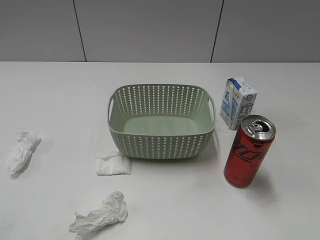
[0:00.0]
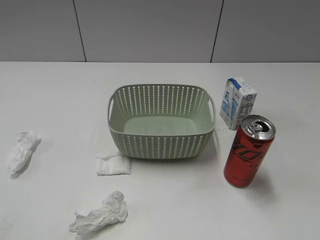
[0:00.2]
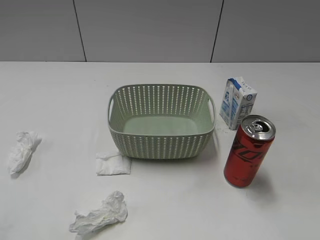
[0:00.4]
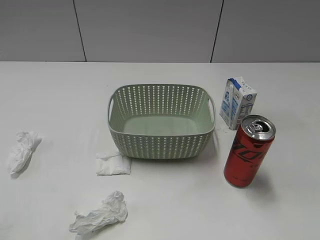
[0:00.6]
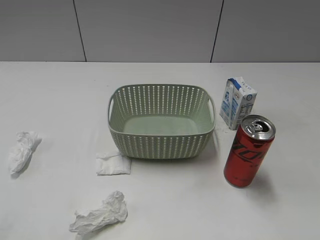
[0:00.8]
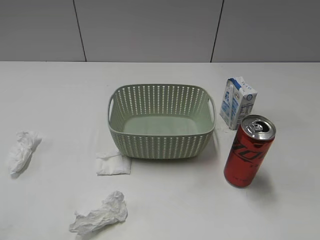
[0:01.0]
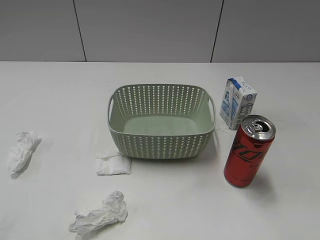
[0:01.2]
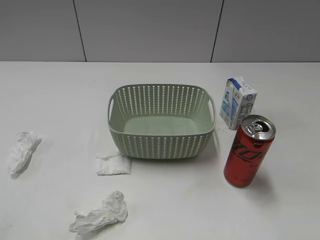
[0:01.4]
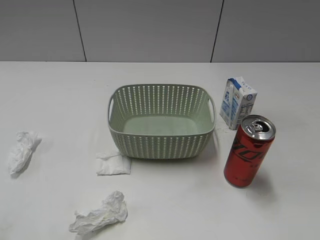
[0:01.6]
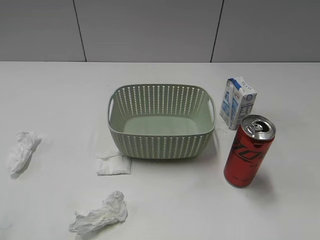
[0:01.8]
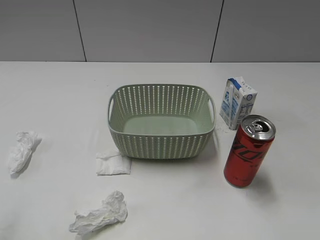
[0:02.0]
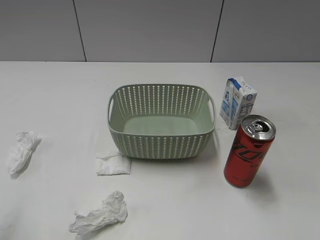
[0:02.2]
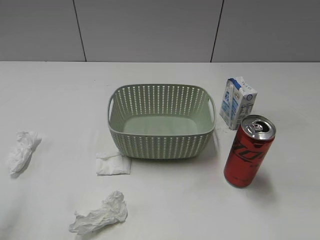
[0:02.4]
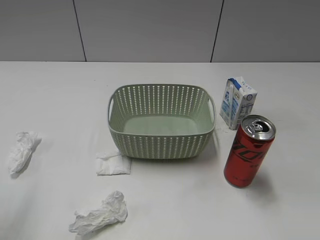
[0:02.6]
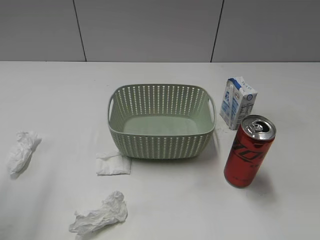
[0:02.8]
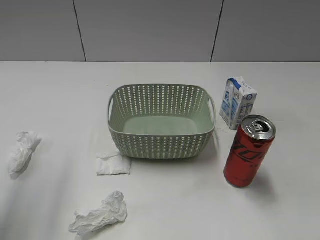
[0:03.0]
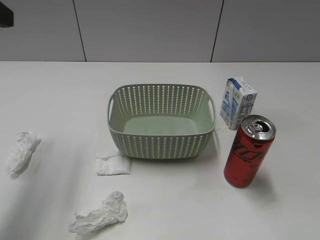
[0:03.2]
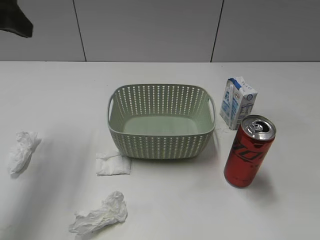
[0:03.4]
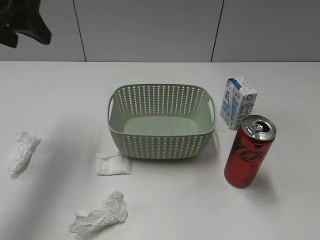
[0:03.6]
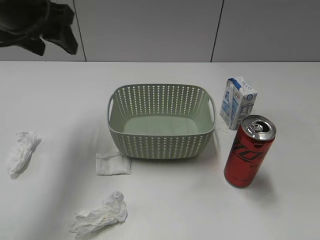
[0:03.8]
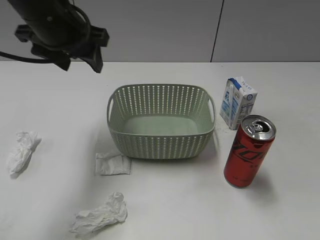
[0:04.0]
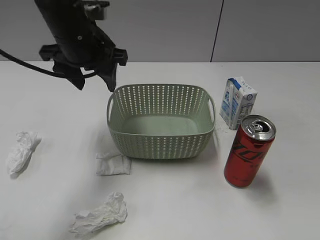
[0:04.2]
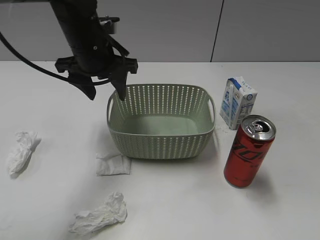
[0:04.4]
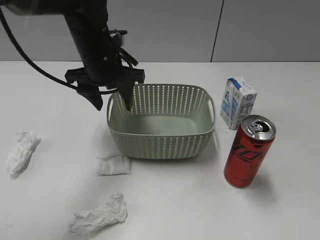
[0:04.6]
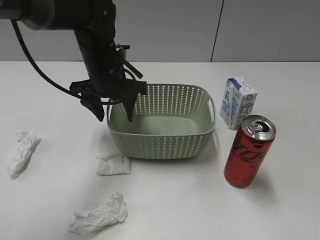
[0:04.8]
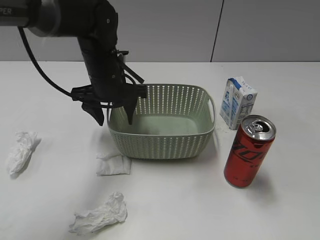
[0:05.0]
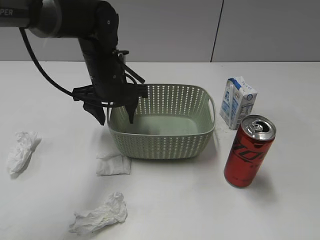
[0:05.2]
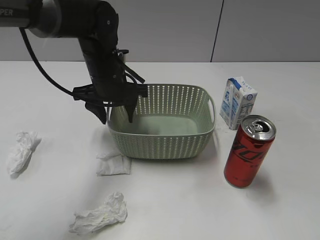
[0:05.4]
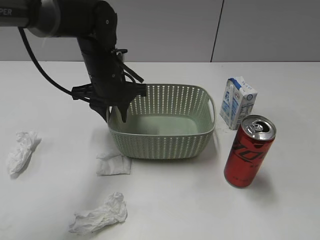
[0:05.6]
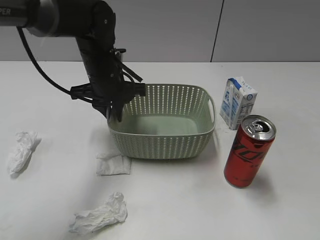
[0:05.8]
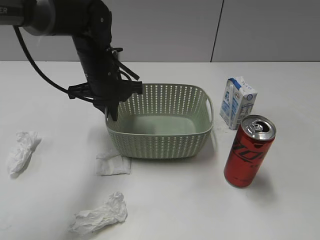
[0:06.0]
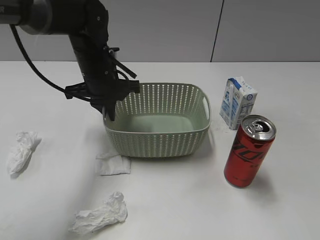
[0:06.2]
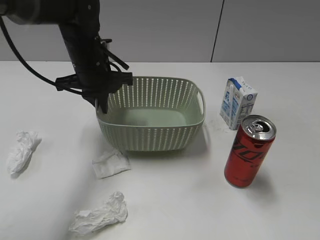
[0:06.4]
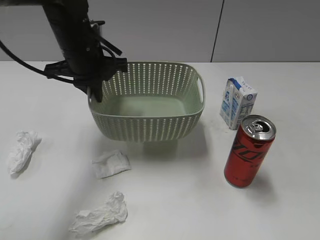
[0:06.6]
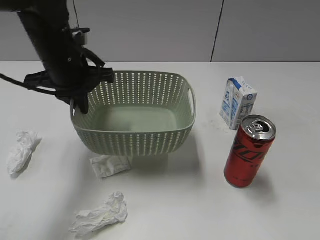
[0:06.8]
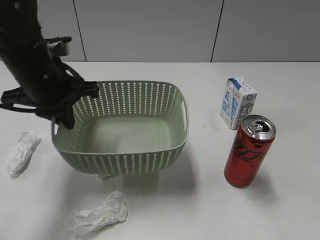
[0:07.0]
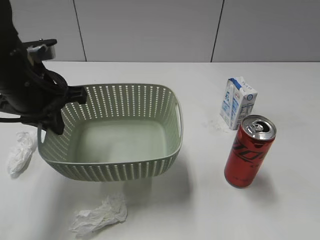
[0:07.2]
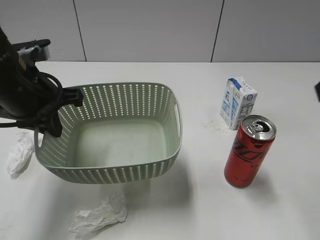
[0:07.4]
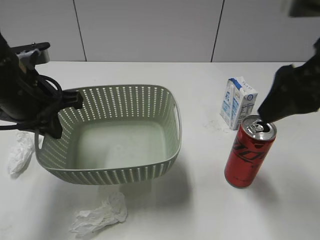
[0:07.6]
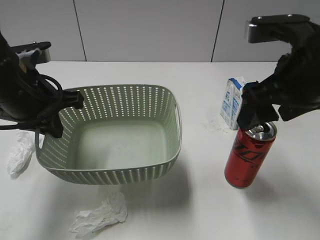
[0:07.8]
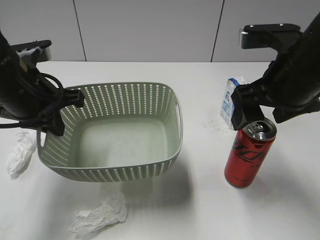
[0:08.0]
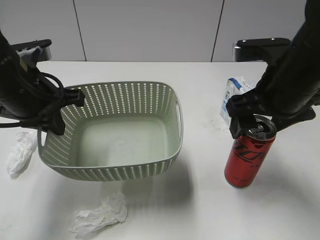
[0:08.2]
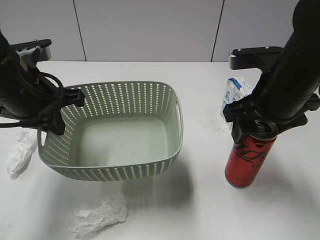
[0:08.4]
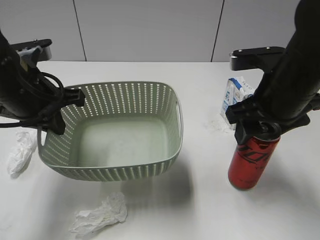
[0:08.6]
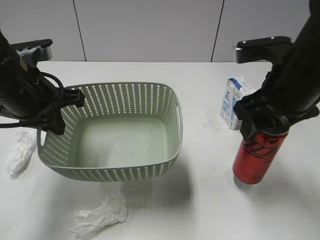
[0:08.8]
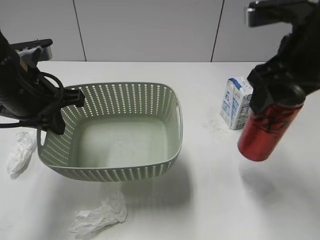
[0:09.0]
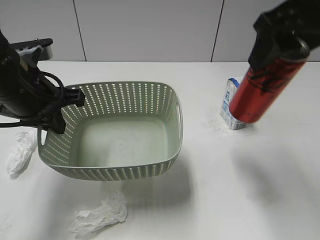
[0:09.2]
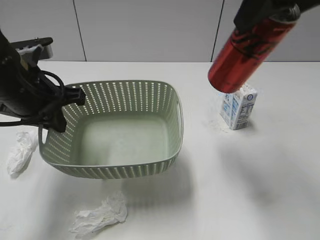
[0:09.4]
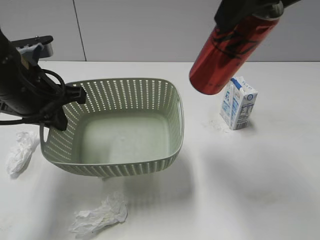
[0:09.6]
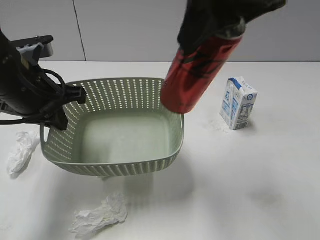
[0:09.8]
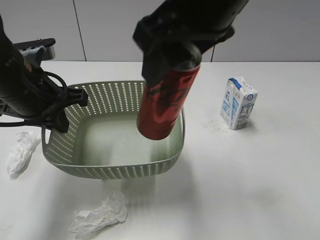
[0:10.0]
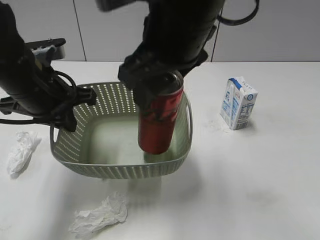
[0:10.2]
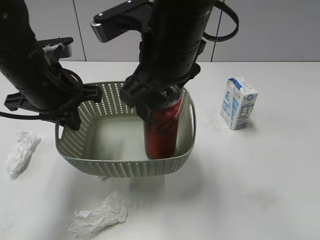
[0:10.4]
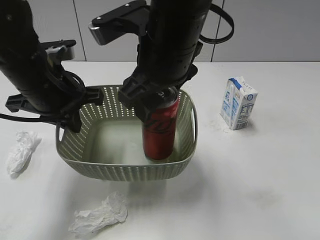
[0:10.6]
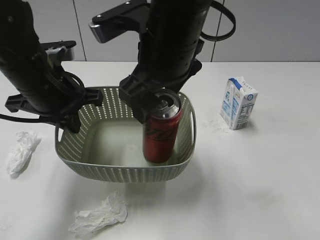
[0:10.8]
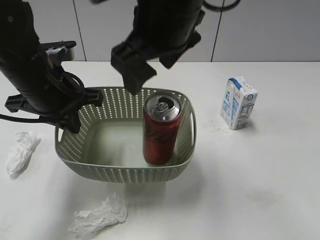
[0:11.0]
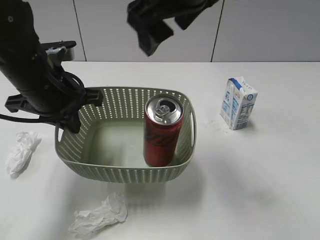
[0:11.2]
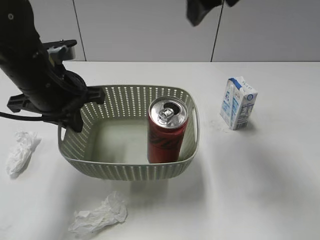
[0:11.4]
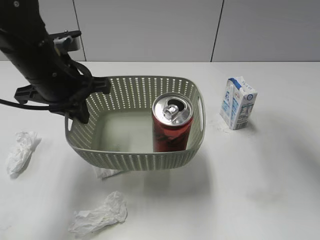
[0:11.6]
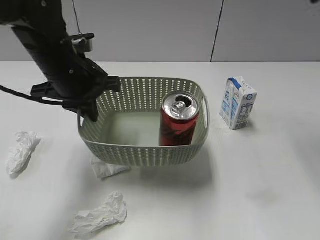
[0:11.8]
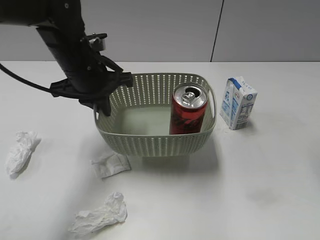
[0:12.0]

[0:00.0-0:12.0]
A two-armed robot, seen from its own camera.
Step, 0:03.2 to 0:05.8: Grasp the basket with left gripper.
Step, 0:06.0 to 0:07.2: Lift the basket with left gripper.
Step, 0:07.4 to 0:08.6: Grasp the cola can with right gripper.
Step, 0:08.8 to 0:11.0: Place the cola can in the basket with right gripper.
0:01.6 to 0:03.0: The left gripper heads forward, covering some 20 cm.
0:03.0 to 0:04.4: The left gripper is displaced to the right, forward and downward by about 25 cm.
0:04.4 to 0:06.0: The left gripper goes about 5 cm downward, and closes.
0:06.0 to 0:07.6: The left gripper heads backward, to the left and upward, covering some 15 cm. The right gripper shifts approximately 25 cm forward and to the left, and opens.
0:07.6 to 0:09.0: The right gripper goes downward and returns, about 10 cm each way, and closes its fingers.
0:09.0 to 0:10.4: The right gripper travels to the left by approximately 15 cm.
0:10.4 to 0:12.0: The right gripper is displaced to the right and upward by roughly 30 cm, and opens; the left gripper is displaced forward by about 5 cm.

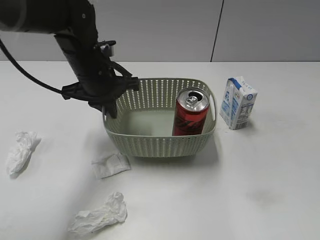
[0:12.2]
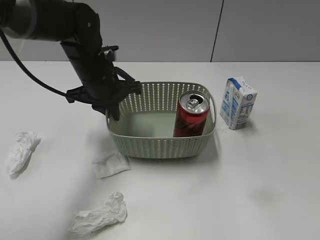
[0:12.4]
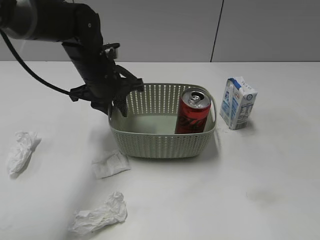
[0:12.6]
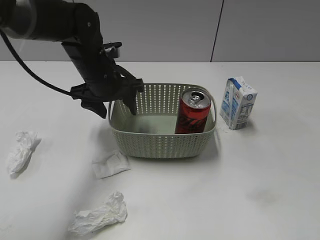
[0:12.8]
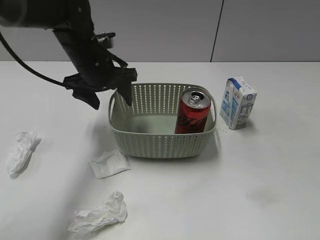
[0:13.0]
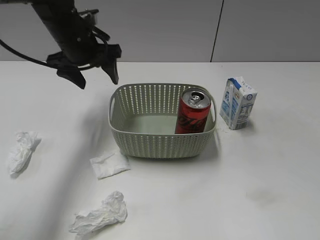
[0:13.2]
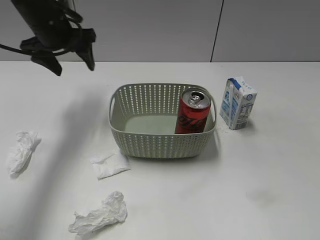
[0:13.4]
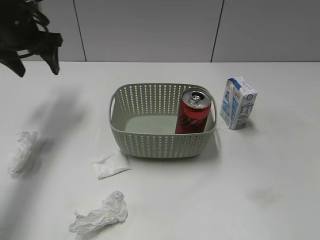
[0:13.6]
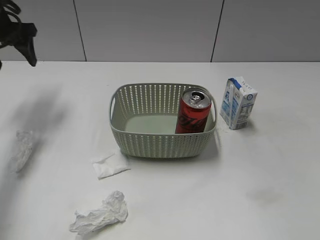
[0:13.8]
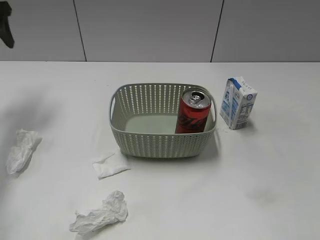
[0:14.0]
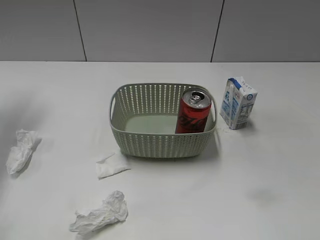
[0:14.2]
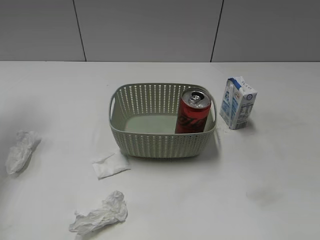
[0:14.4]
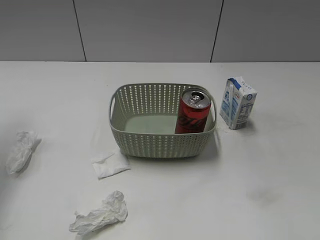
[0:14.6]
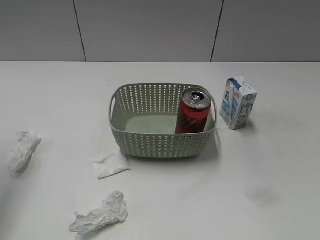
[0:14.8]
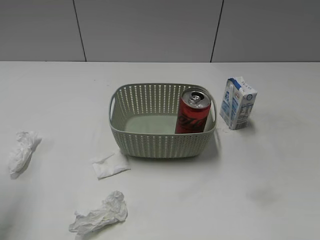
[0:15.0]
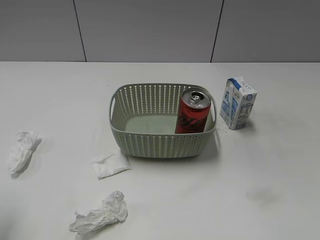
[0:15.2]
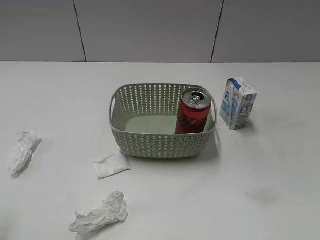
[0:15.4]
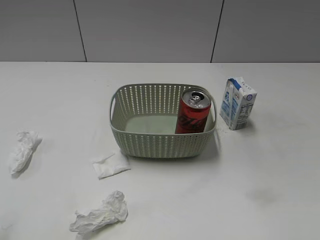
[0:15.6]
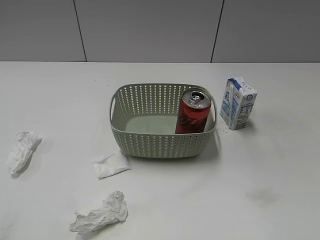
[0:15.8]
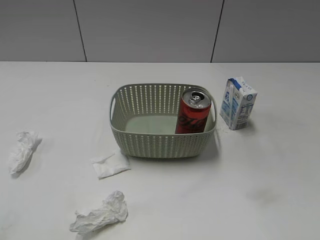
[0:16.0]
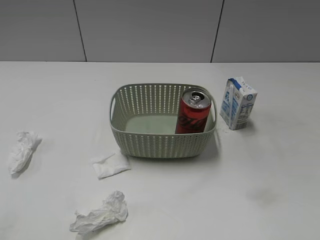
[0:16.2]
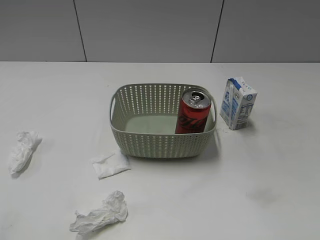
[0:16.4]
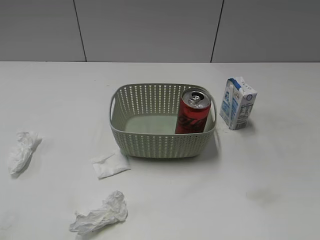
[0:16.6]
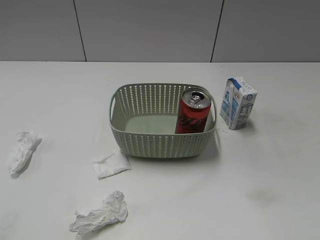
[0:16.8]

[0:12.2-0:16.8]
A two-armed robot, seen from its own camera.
0:12.2 to 0:13.8: The left gripper shifts some 20 cm to the left, and opens up. The right gripper goes some 20 cm backward and downward.
0:13.8 to 0:15.2: The left gripper goes roughly 30 cm backward.

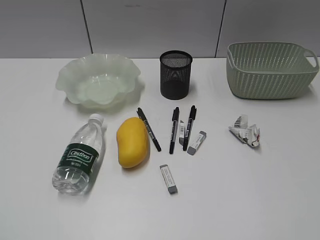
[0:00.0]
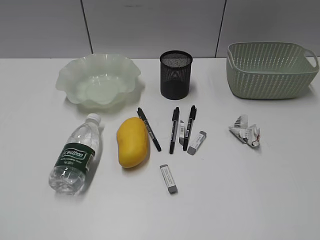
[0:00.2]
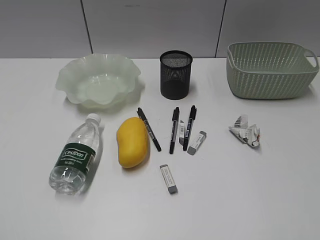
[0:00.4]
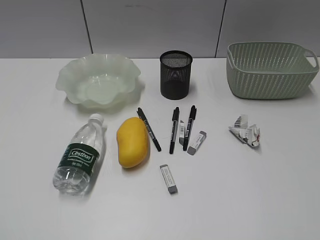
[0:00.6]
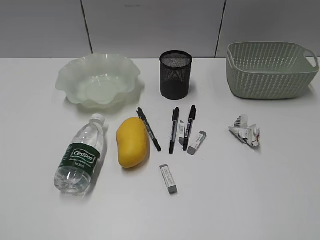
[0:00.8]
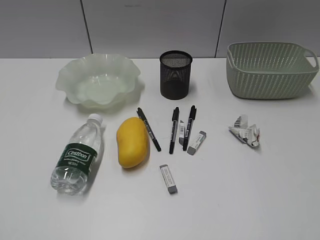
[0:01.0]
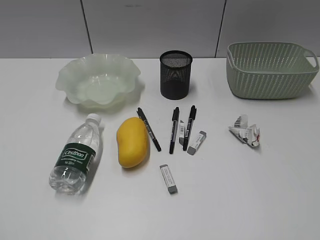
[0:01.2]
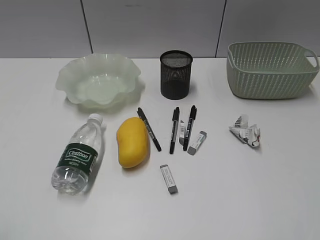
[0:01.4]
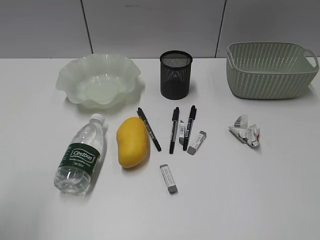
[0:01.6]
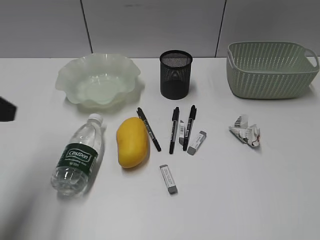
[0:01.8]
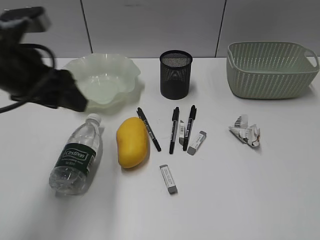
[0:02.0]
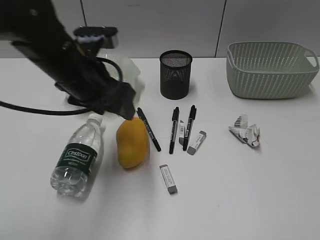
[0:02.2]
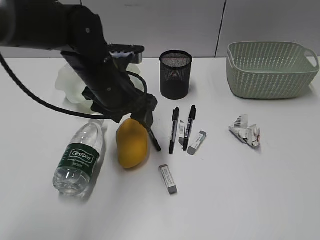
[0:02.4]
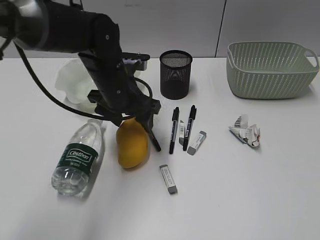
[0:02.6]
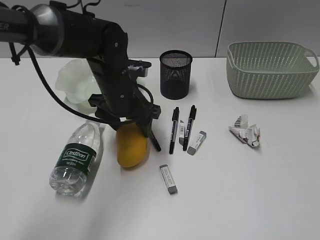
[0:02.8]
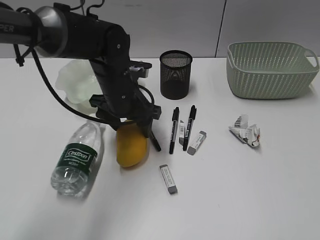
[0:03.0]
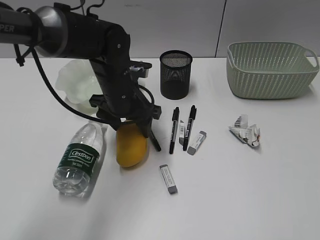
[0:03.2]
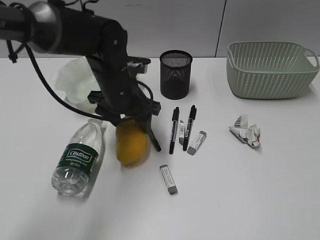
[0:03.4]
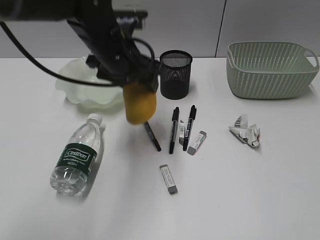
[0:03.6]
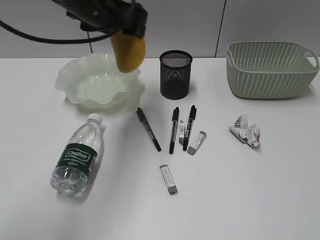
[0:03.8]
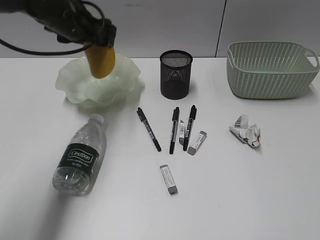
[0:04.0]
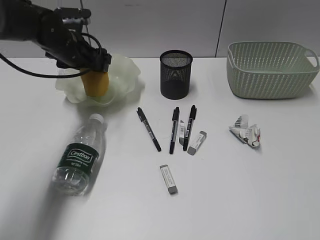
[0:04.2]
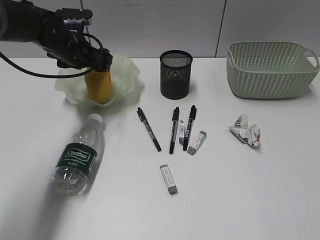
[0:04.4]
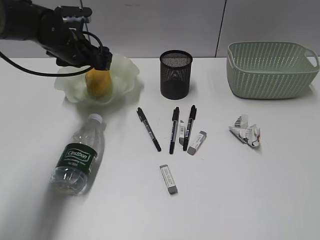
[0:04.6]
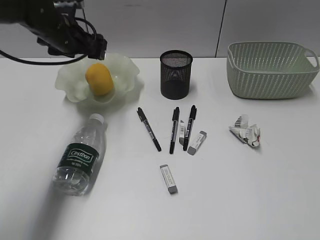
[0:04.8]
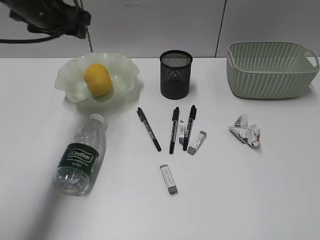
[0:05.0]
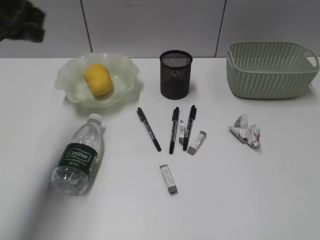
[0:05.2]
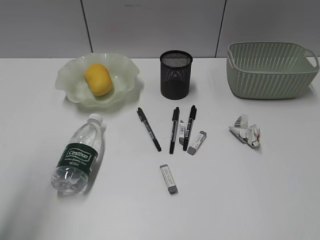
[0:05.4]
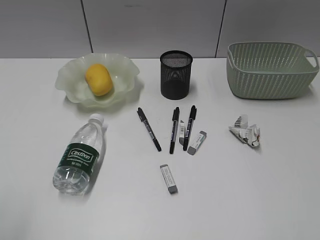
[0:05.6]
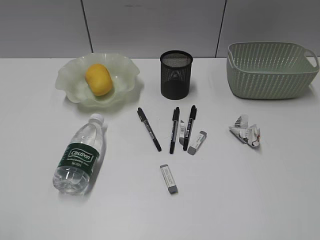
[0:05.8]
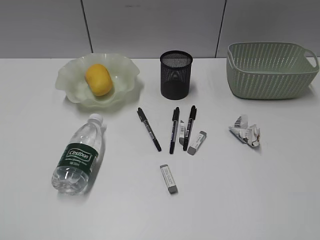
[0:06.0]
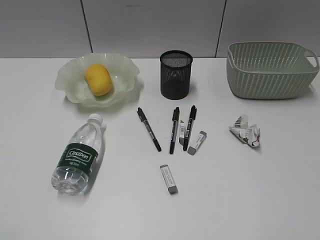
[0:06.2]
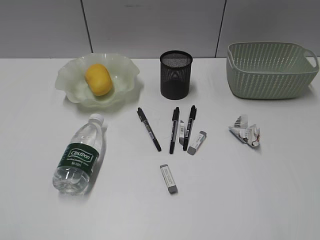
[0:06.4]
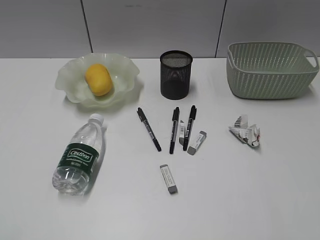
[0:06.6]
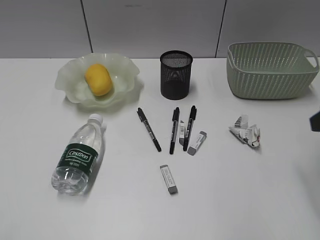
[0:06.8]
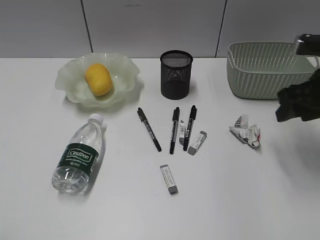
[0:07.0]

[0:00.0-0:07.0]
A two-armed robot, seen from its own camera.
Step, 0:01.4 to 0:03.2: Grasp the mango with left gripper.
Step, 0:03.4 to 0:04.8: Place the mango in the plate with left gripper.
0:01.4 to 0:02.8: The left gripper heads forward, to the right and downward, covering some 50 cm, and opens.
0:02.8 to 0:04.2: The left gripper is displaced to the left and forward by some 15 cm, and goes upward and returns, roughly 15 cm each way.
0:04.2 to 0:05.6: The left gripper heads backward, covering roughly 40 cm, and closes up.
0:05.6 to 0:07.0: The right gripper goes approximately 30 cm forward, and opens.
